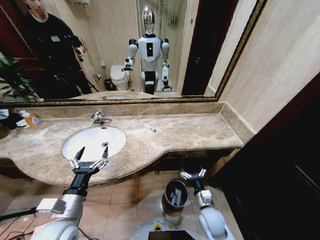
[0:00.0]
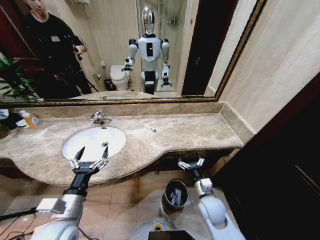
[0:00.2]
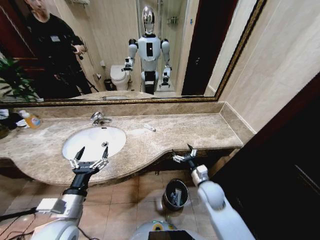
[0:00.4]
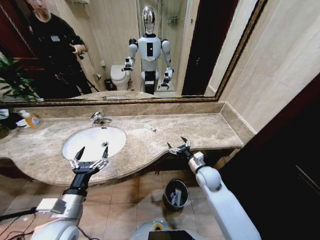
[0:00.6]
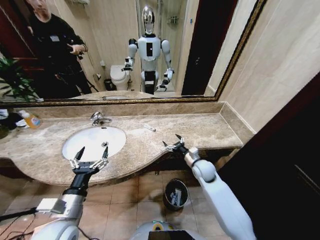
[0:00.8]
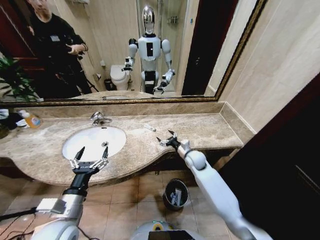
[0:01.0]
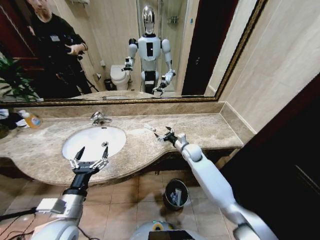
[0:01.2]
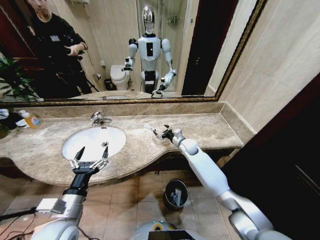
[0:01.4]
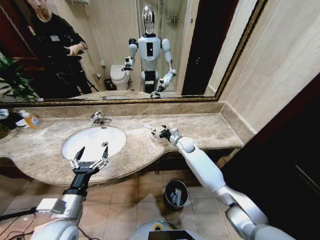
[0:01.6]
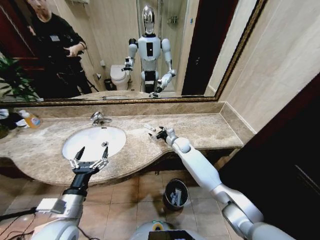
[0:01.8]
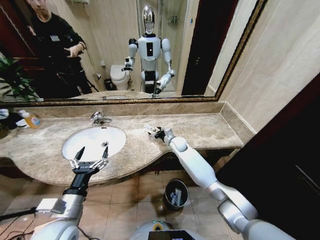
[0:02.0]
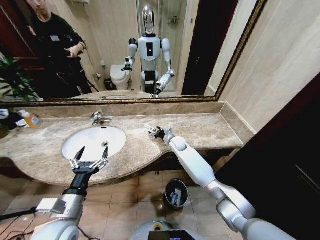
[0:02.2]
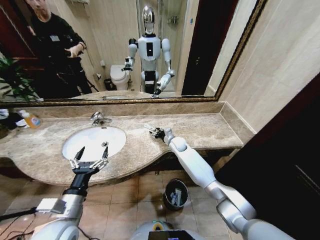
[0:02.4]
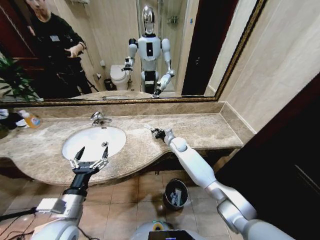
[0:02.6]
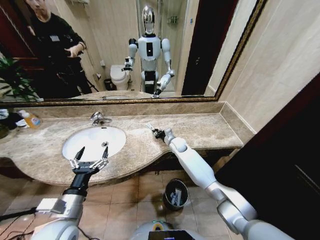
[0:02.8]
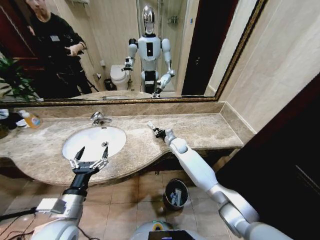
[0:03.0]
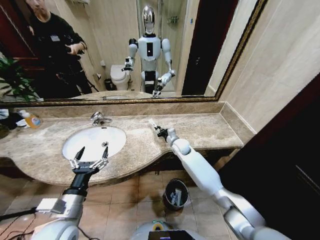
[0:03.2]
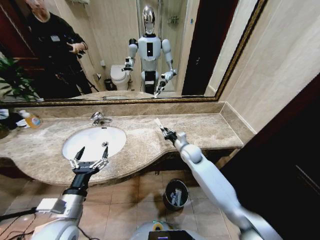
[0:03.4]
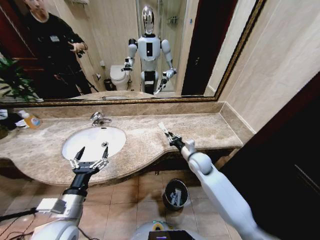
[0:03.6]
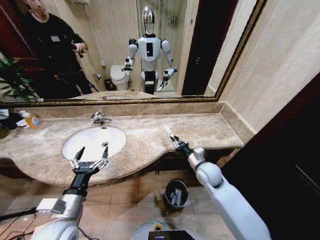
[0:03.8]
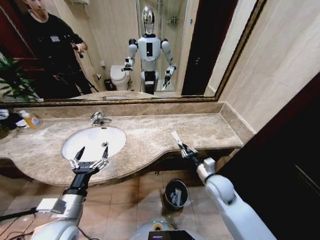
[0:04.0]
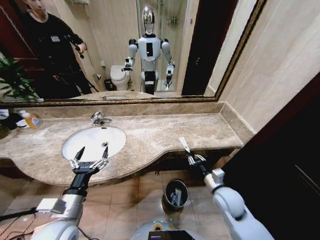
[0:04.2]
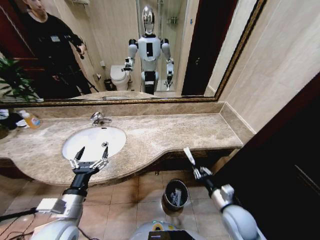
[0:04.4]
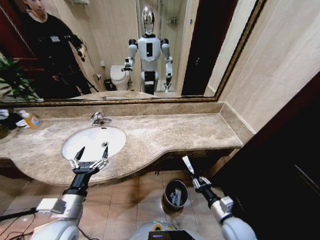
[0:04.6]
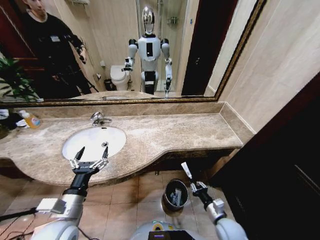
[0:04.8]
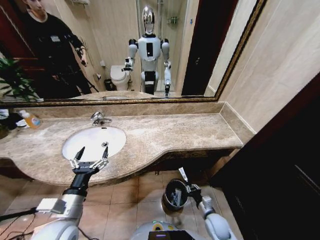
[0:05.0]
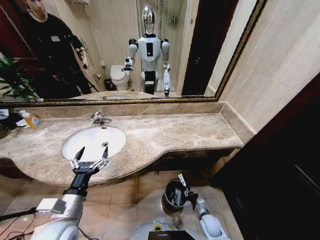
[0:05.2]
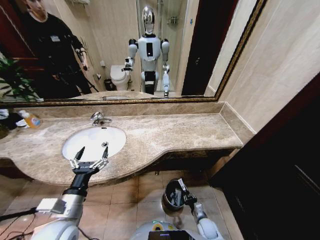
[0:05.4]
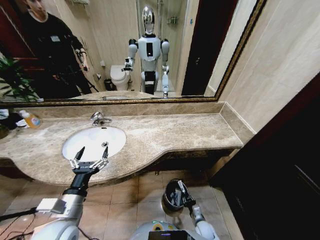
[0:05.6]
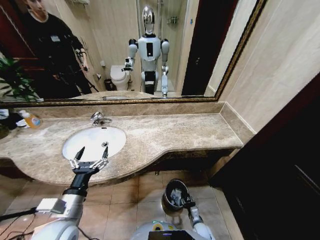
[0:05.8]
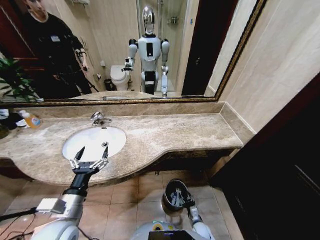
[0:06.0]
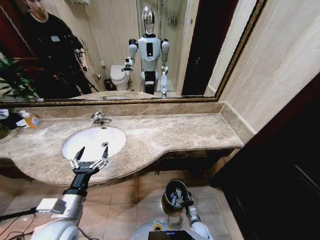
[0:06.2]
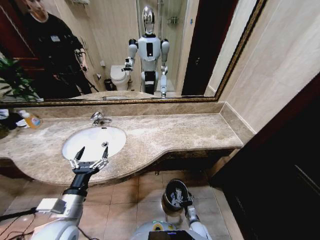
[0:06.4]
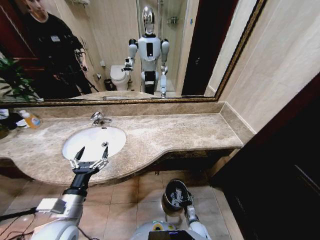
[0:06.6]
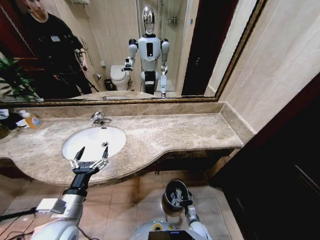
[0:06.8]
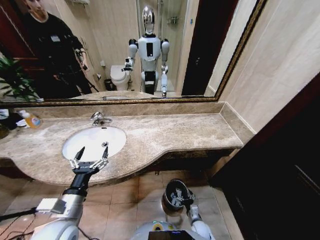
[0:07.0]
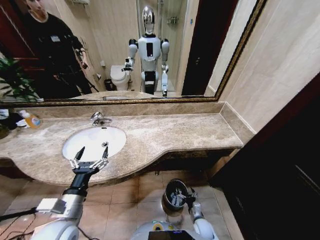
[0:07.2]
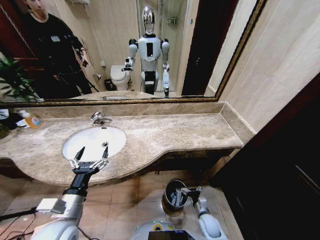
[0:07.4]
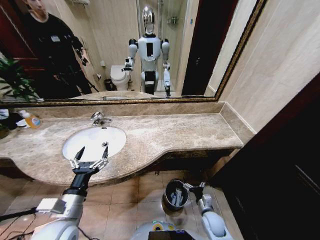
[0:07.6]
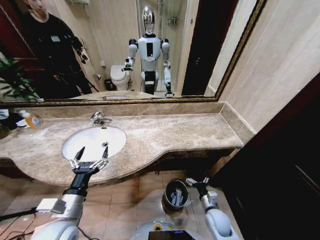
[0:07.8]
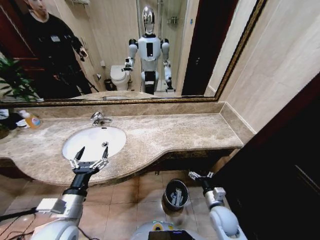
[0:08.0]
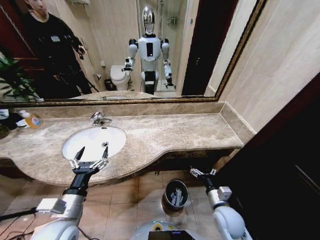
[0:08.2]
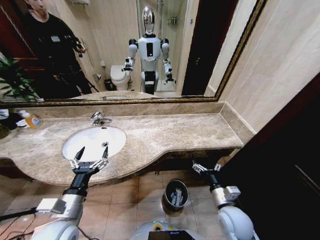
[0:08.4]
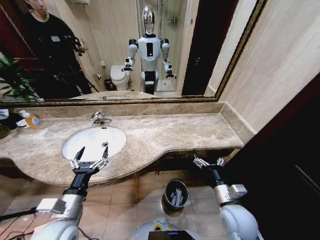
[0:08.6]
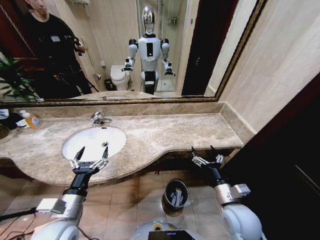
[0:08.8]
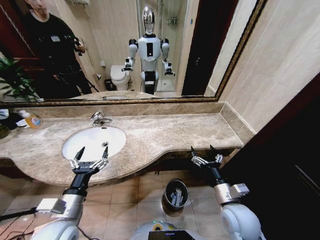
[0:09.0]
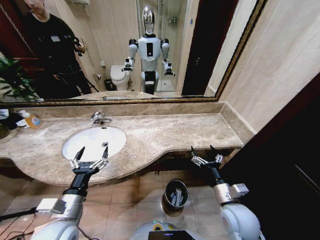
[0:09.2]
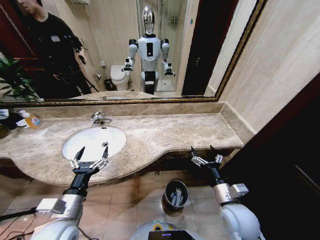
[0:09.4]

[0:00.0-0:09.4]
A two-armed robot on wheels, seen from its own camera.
Task of the whole recording: Pick up the trash from the sink and place it in the trash bin.
0:00.0 to 0:01.6: The right gripper heads forward, covering some 30 cm.
0:01.6 to 0:03.2: The right gripper closes its fingers.
0:03.2 to 0:04.8: The right gripper shifts approximately 35 cm backward and to the right.
0:04.8 to 0:06.2: The right gripper heads downward, covering roughly 20 cm, and opens up.
0:06.2 to 0:07.8: The right gripper is displaced upward by about 15 cm.
0:07.8 to 0:09.4: The right gripper shifts about 15 cm upward.
